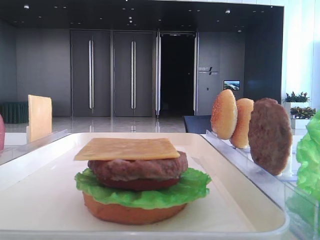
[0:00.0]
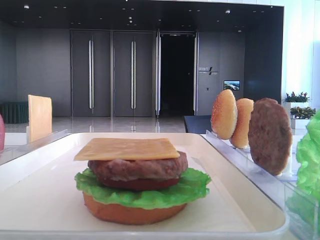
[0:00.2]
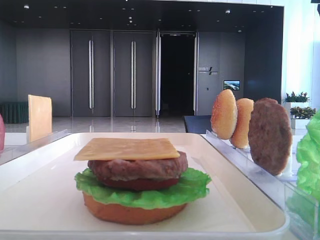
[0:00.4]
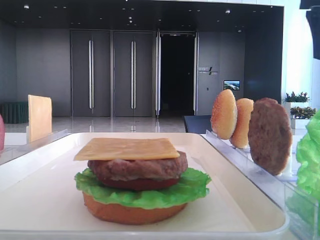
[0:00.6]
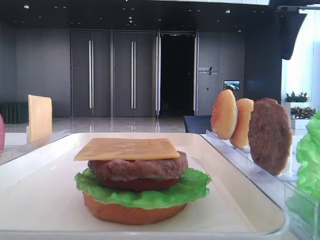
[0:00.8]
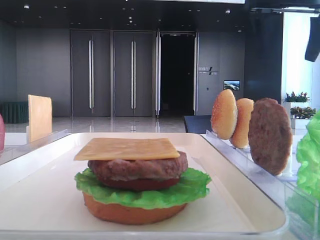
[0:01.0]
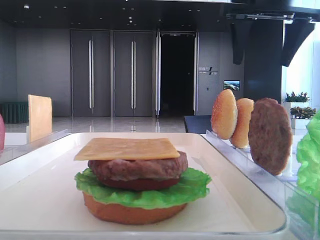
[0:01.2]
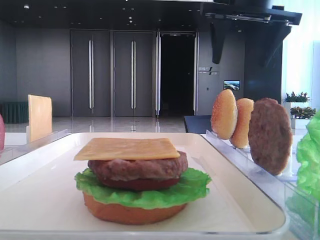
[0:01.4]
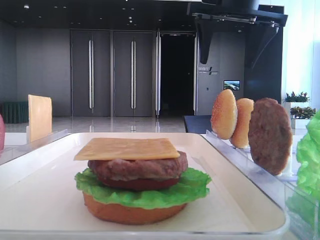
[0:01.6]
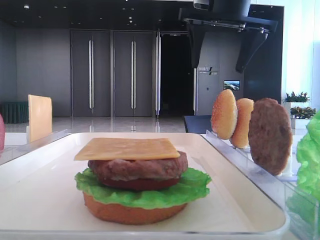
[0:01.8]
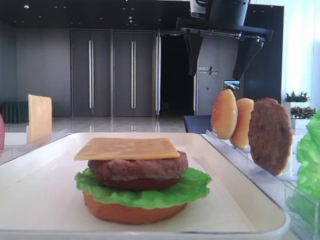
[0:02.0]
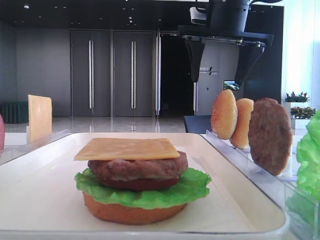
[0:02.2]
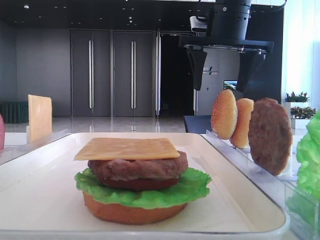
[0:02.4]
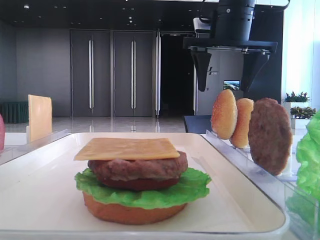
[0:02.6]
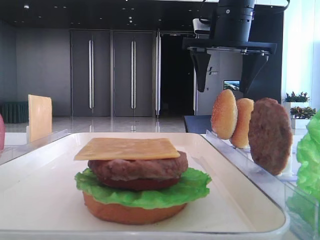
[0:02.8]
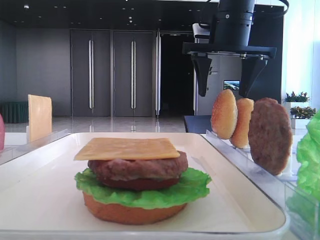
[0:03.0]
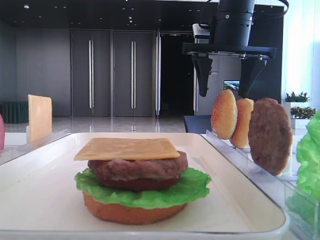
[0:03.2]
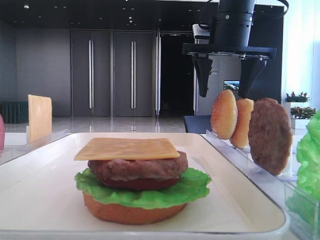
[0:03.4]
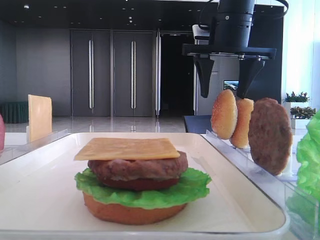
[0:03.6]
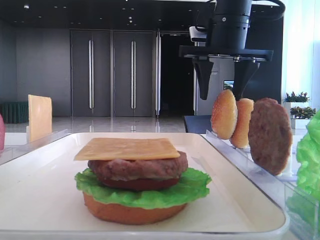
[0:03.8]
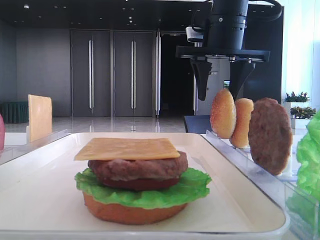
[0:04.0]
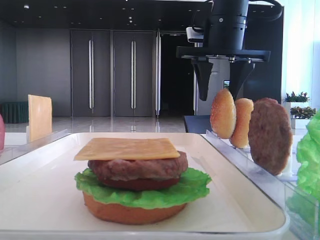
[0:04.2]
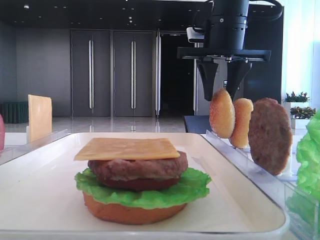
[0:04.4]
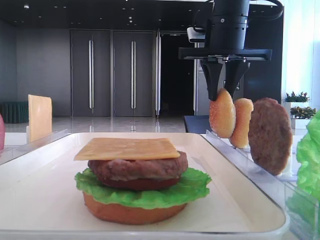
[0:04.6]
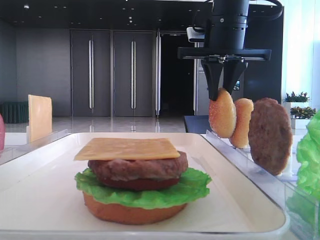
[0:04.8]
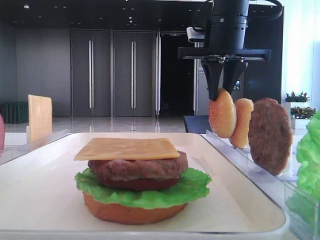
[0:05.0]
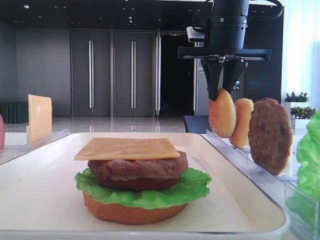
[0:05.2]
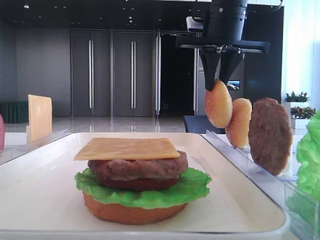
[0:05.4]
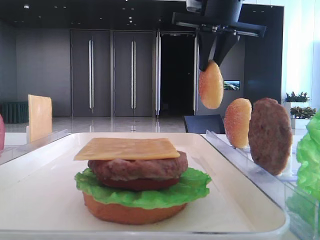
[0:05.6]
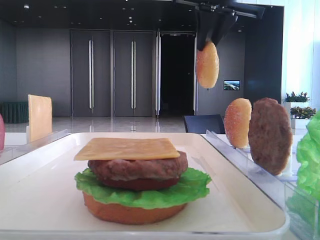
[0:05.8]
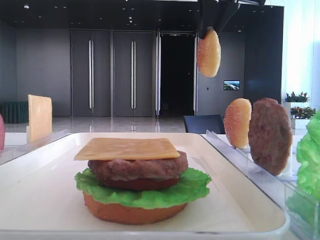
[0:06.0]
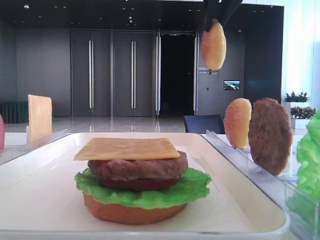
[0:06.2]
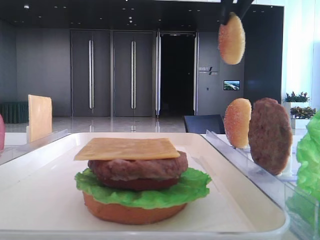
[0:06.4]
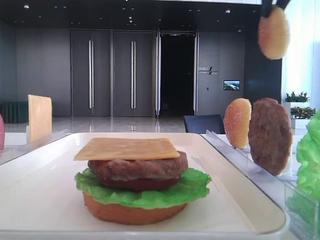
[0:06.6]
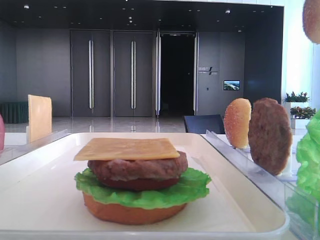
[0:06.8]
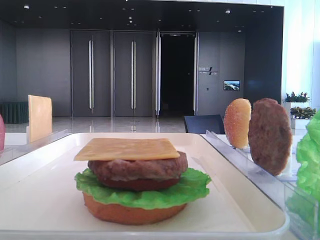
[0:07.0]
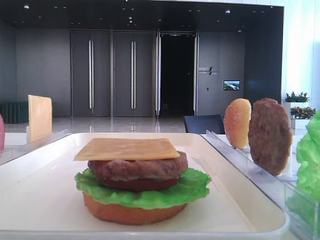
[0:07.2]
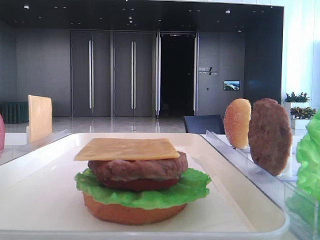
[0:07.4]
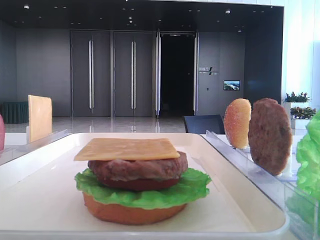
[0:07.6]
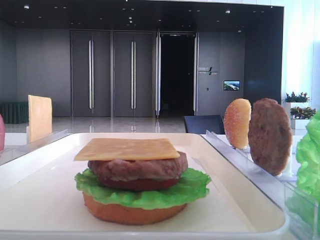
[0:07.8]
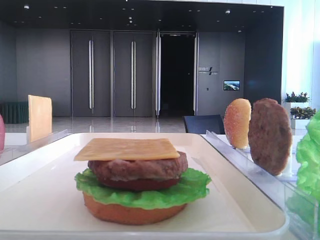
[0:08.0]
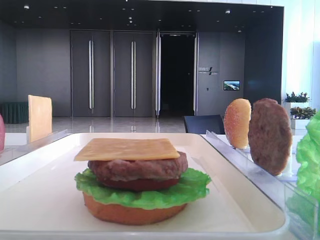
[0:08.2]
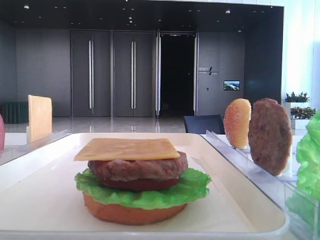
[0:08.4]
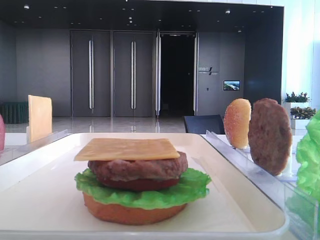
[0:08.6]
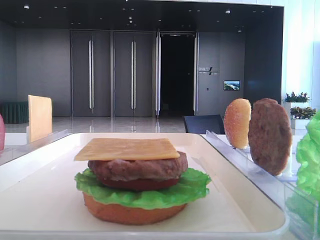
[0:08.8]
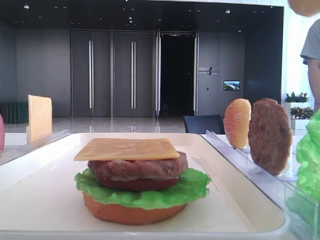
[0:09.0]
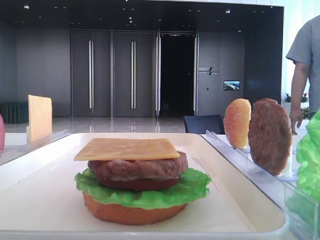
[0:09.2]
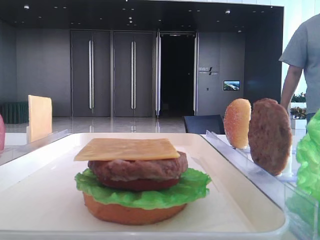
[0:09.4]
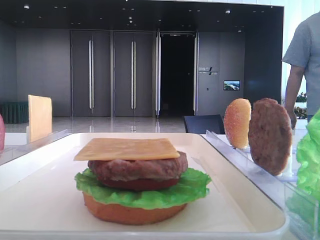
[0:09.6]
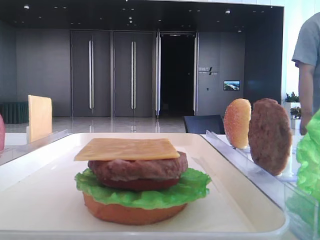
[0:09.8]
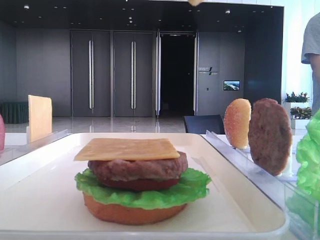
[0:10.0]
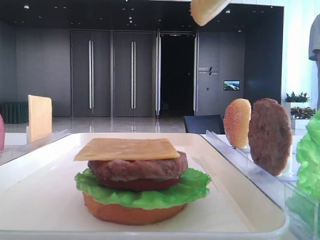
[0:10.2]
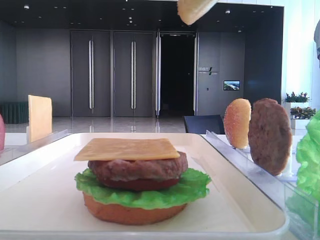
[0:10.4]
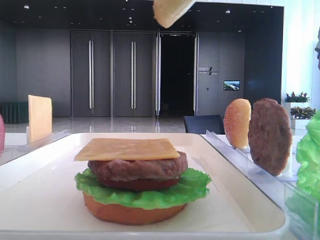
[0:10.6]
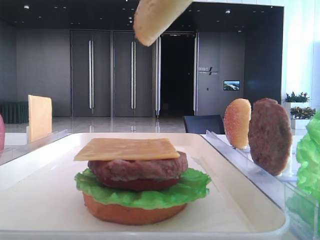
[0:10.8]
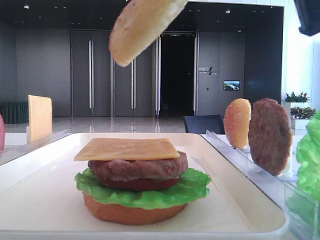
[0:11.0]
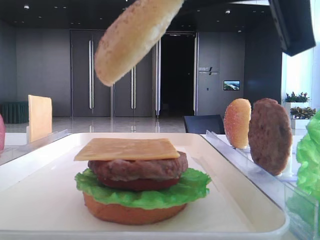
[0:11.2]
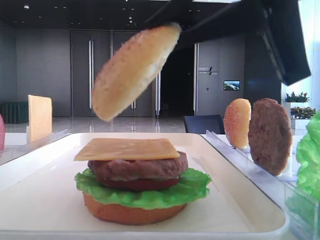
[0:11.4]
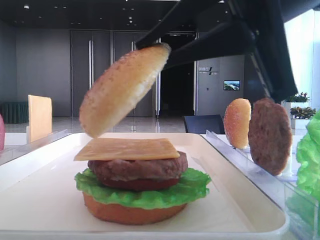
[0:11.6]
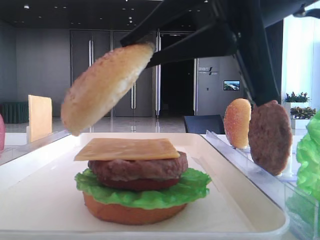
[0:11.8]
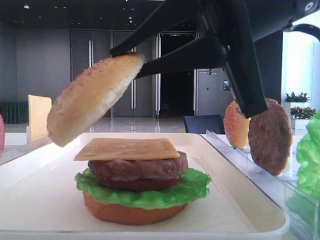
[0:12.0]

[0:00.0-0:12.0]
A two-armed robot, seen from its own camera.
Step, 0:00.0 to 0:05.0: Pick up the top bread slice with the right hand.
0:00.0 to 0:01.6: The right gripper moves to the left and forward, approximately 20 cm.
0:01.6 to 0:03.0: The left gripper closes up. The right gripper changes place by about 5 cm.
0:03.0 to 0:04.4: The right gripper closes.
0:04.4 to 0:06.0: The right gripper moves upward, roughly 10 cm.
0:06.0 to 0:07.6: The right gripper travels backward and to the right by some 25 cm.
0:07.6 to 0:09.0: The right gripper moves about 5 cm.
0:09.0 to 0:10.4: The right gripper is displaced downward by roughly 5 cm.
0:10.4 to 0:12.0: The right gripper heads to the left and downward, covering approximately 15 cm.

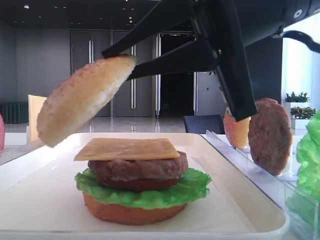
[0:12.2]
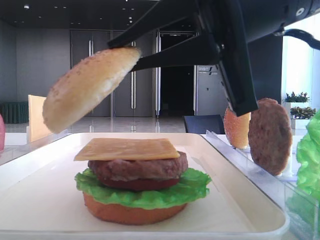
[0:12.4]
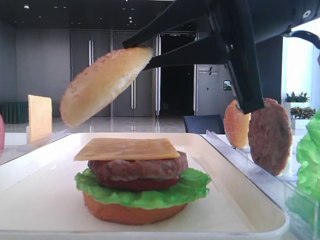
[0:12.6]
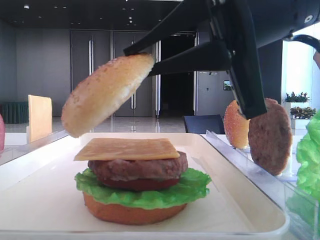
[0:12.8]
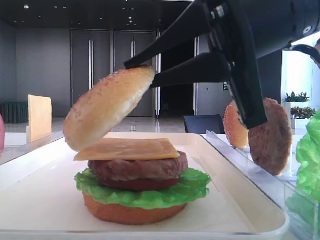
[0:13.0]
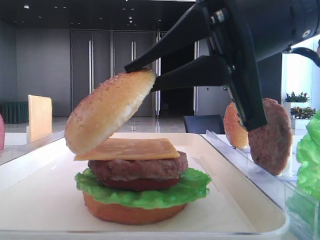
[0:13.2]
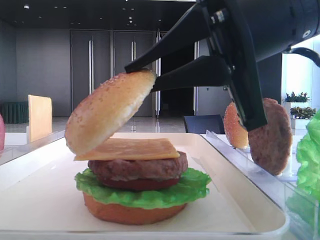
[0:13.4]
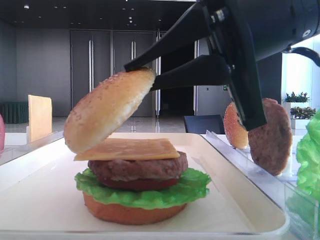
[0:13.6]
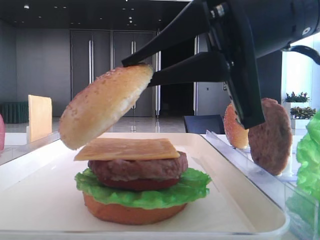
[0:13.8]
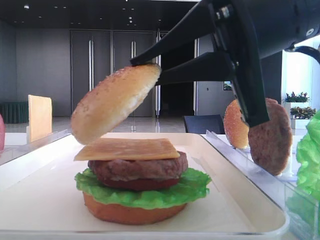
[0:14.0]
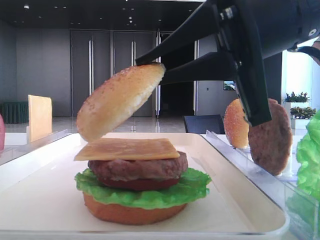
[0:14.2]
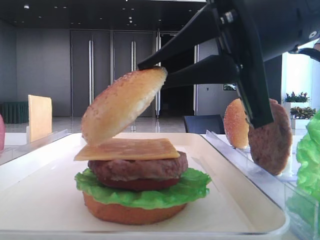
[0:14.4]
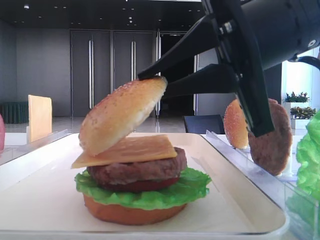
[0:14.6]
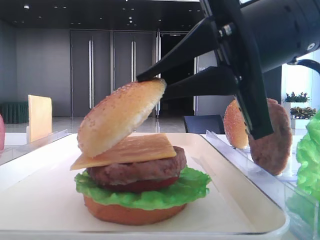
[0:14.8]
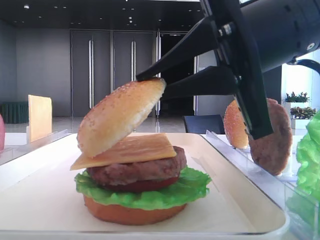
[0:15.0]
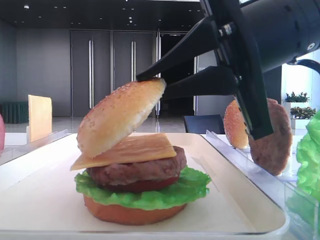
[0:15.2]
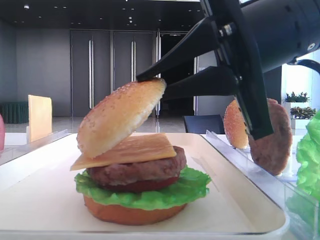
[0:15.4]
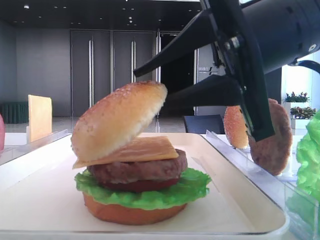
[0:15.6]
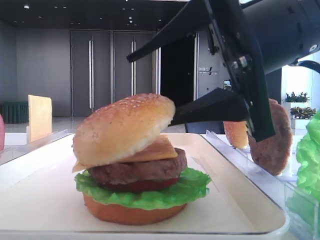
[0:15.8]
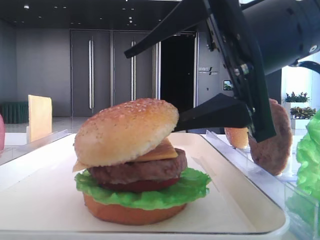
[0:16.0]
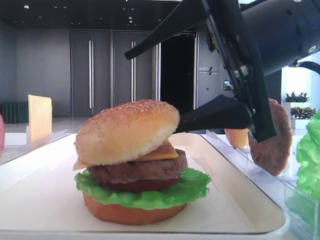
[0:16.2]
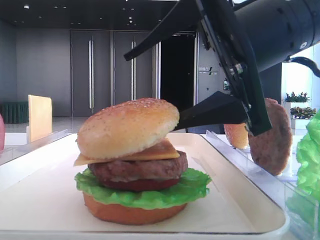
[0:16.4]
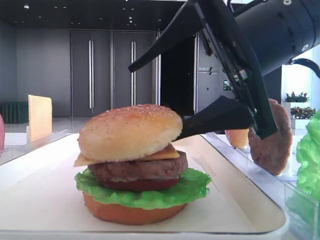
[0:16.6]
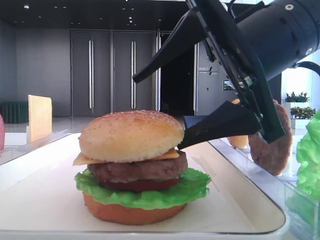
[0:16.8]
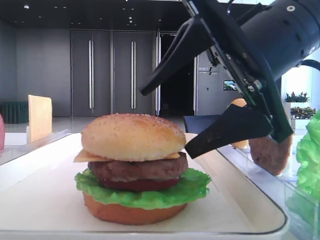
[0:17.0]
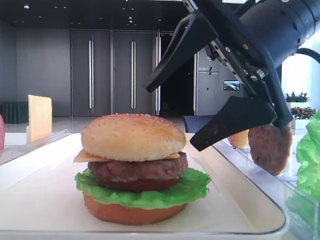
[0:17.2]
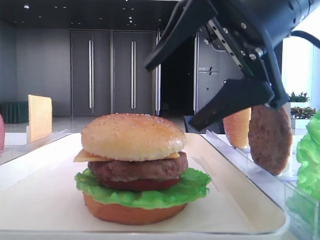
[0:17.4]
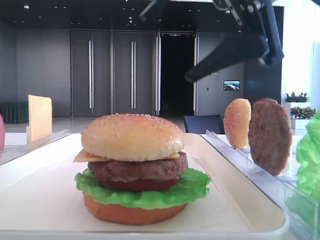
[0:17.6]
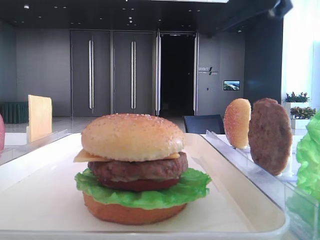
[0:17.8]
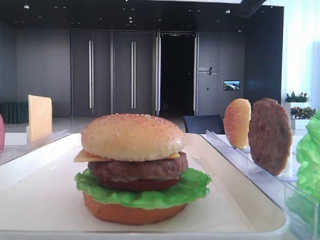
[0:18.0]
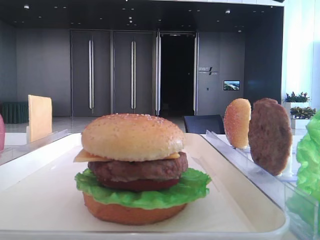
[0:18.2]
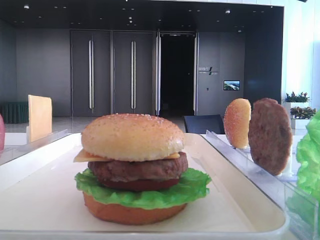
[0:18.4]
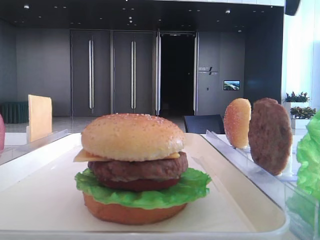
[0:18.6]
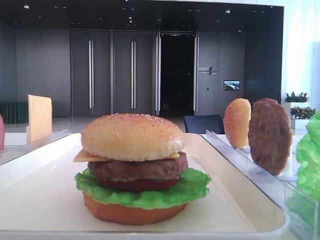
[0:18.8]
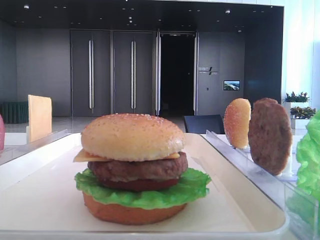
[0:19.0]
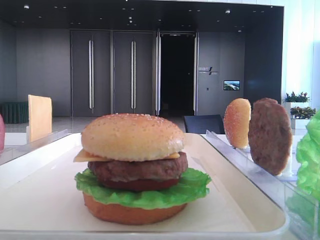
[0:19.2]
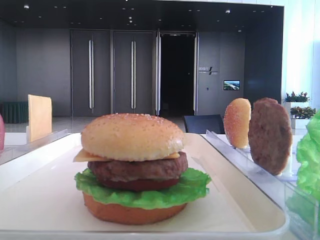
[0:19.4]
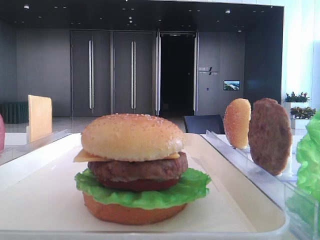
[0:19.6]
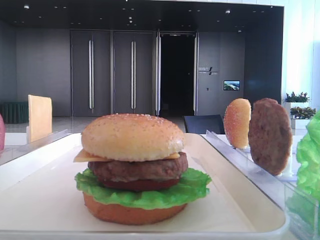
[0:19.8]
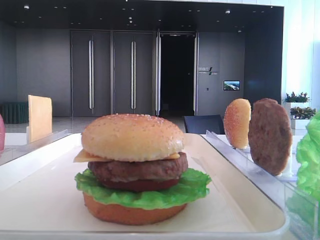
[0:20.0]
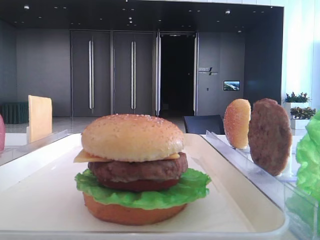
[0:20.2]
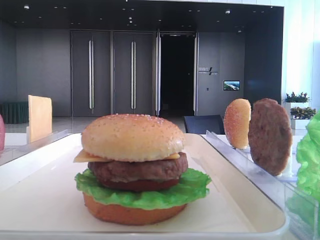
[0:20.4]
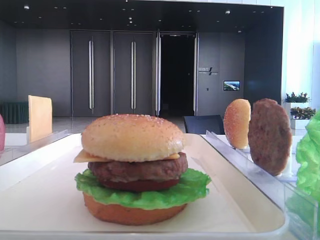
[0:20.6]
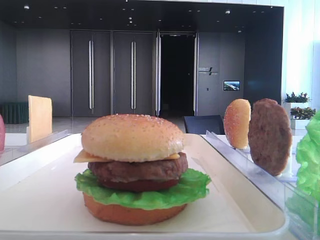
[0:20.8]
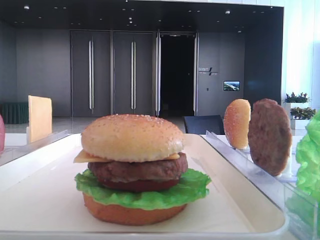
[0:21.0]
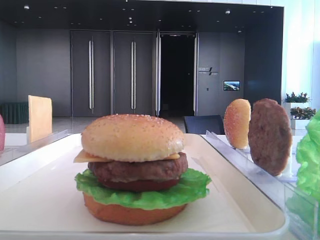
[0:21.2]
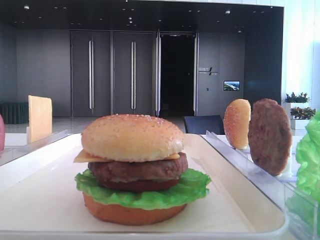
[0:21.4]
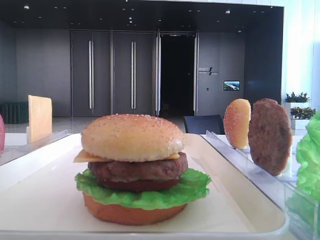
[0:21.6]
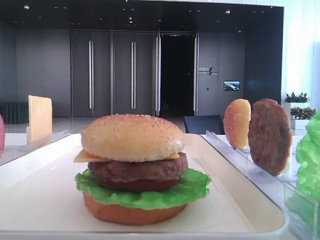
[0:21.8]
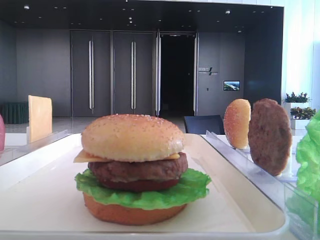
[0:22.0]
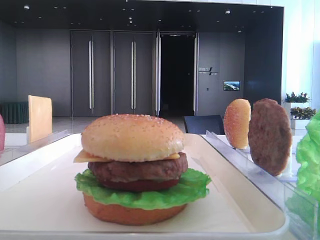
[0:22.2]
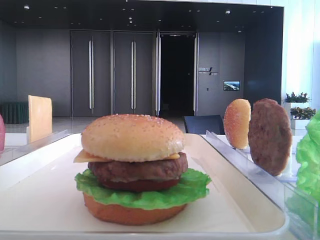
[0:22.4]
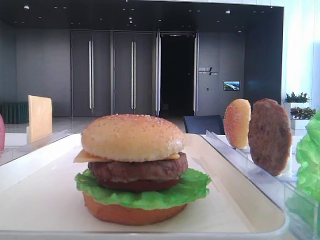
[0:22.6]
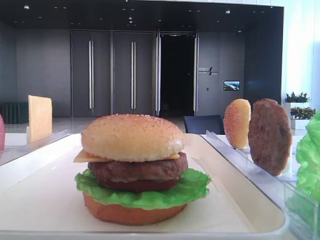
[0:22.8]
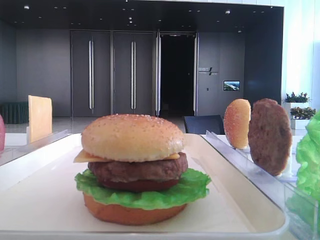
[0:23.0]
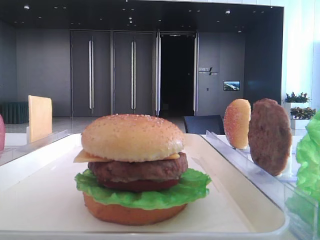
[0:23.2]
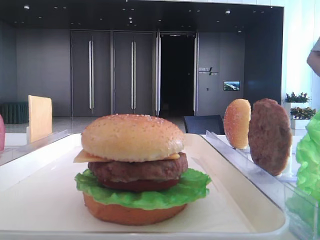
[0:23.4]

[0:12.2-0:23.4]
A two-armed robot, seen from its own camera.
Step, 0:12.2 to 0:16.8: Place the top bread slice on the cheese with the right hand.
0:12.2 to 0:15.4: The grippers move only a little.
0:15.4 to 0:17.0: The right gripper opens its fingers.
0:17.0 to 0:18.6: The right gripper goes roughly 25 cm upward, to the right and forward.
0:18.6 to 0:20.2: The right gripper is displaced backward and upward by roughly 30 cm.
0:21.8 to 0:23.4: Both grippers stay about where they are.
